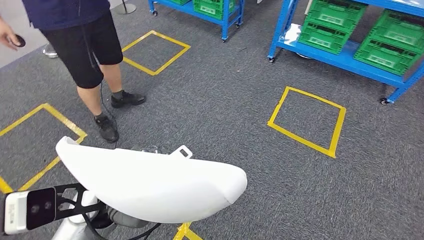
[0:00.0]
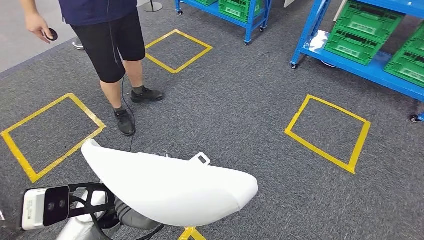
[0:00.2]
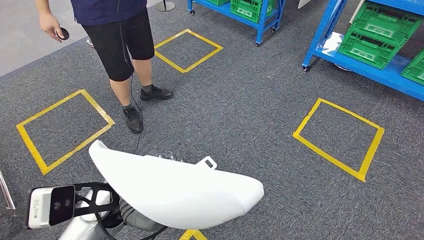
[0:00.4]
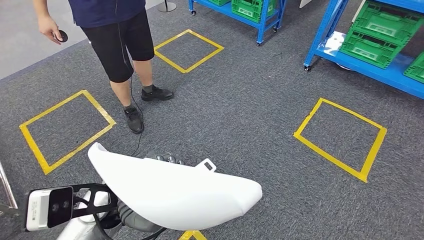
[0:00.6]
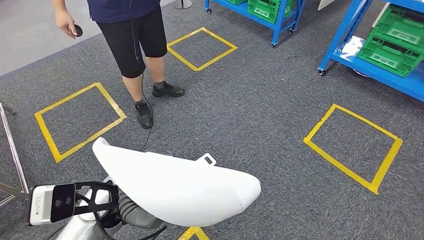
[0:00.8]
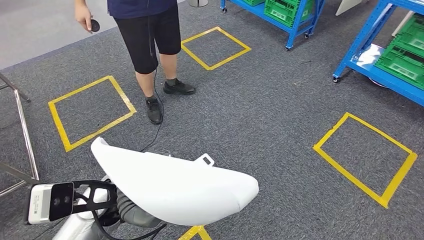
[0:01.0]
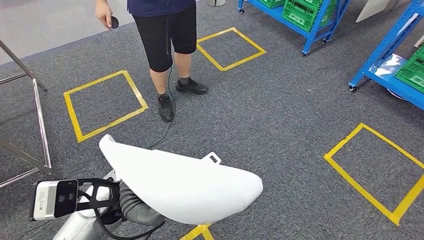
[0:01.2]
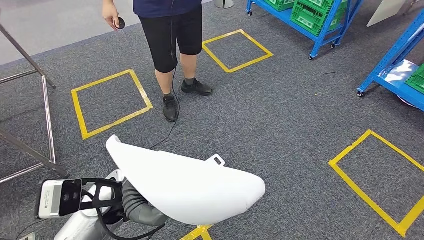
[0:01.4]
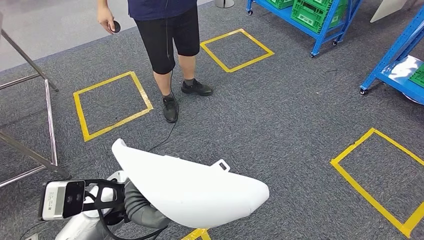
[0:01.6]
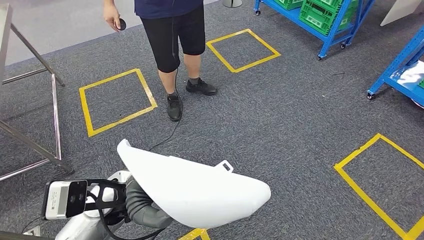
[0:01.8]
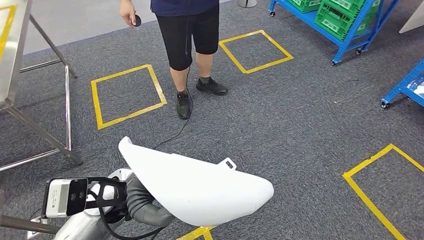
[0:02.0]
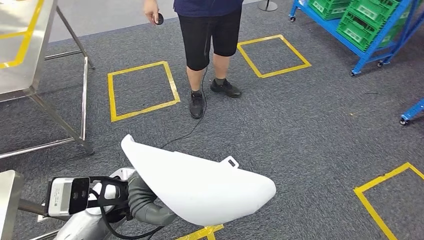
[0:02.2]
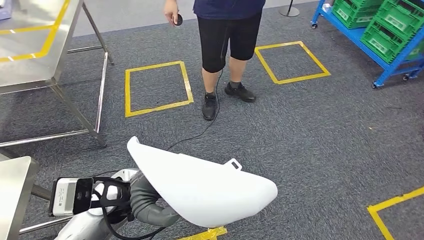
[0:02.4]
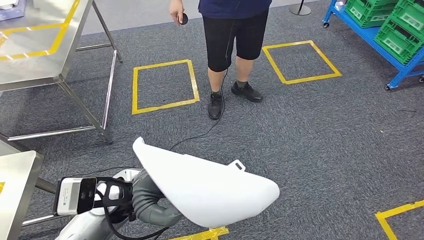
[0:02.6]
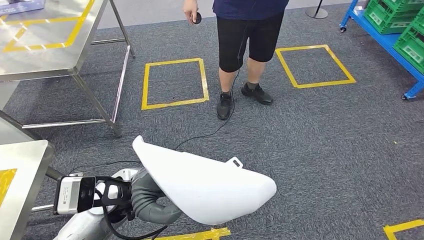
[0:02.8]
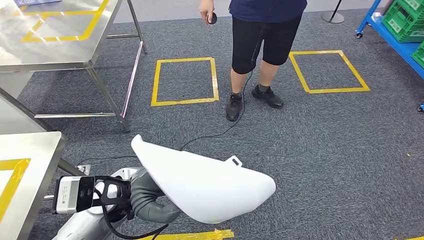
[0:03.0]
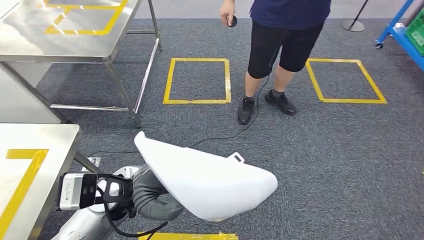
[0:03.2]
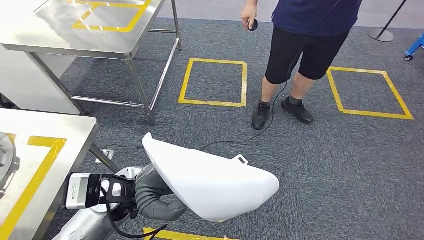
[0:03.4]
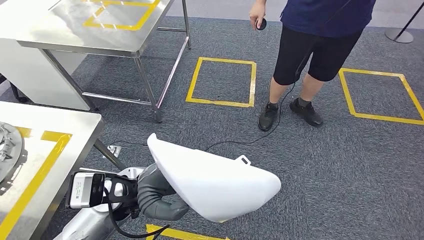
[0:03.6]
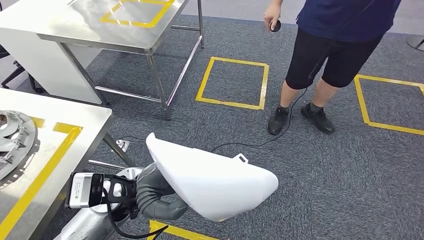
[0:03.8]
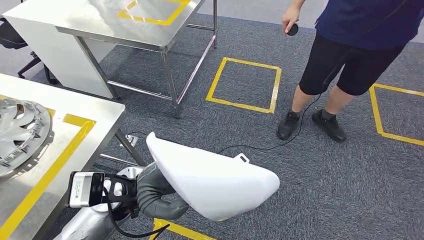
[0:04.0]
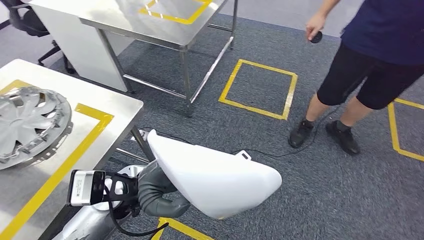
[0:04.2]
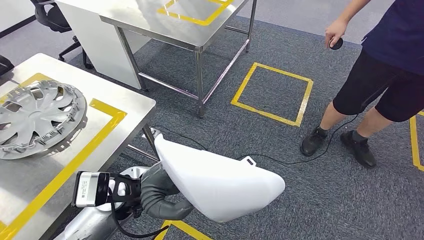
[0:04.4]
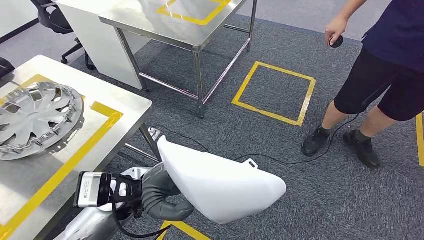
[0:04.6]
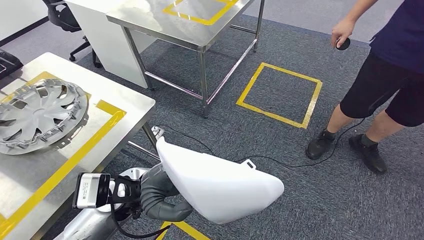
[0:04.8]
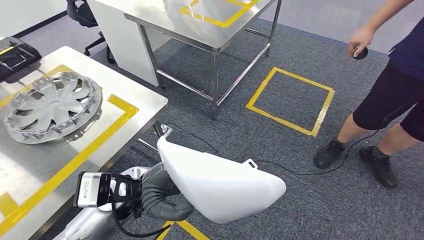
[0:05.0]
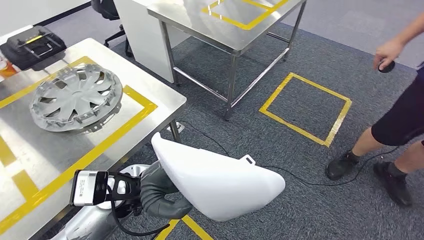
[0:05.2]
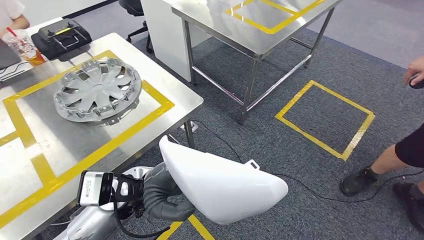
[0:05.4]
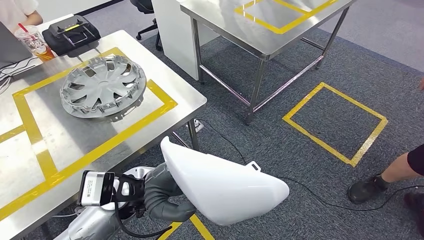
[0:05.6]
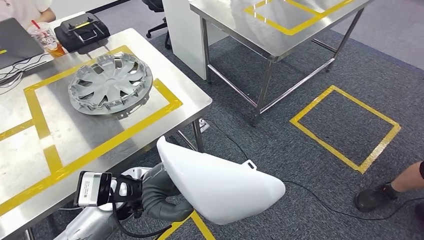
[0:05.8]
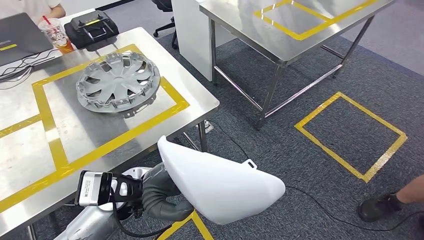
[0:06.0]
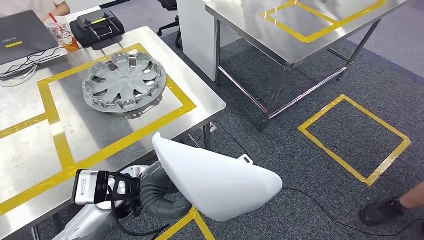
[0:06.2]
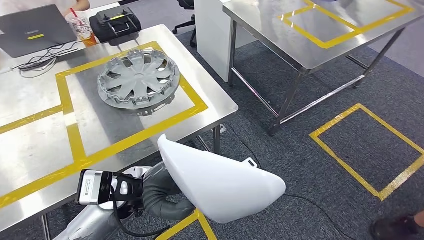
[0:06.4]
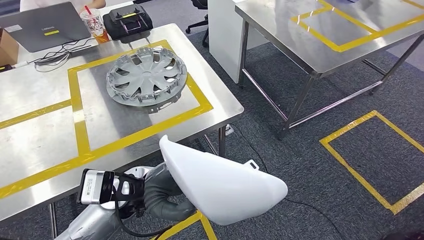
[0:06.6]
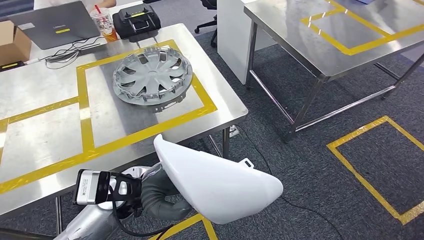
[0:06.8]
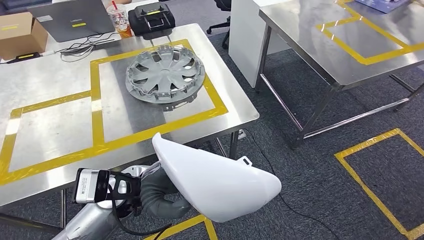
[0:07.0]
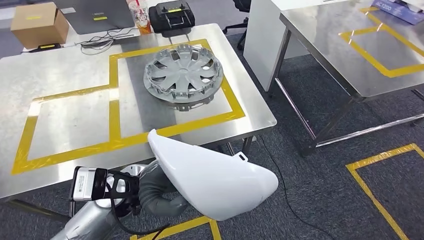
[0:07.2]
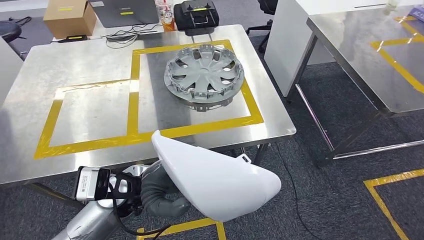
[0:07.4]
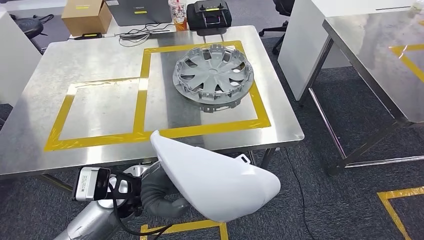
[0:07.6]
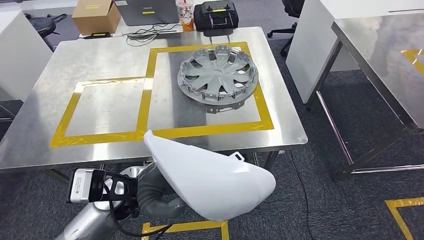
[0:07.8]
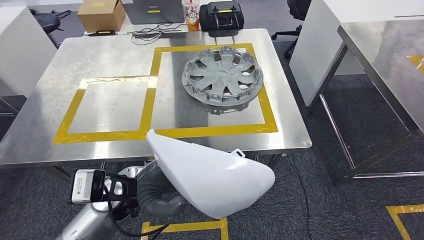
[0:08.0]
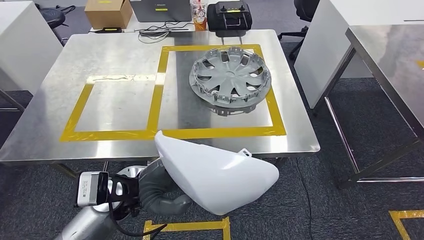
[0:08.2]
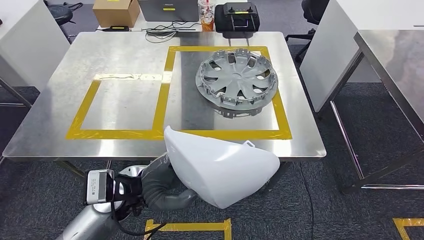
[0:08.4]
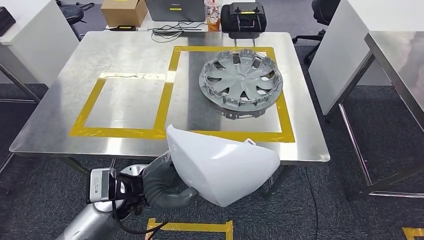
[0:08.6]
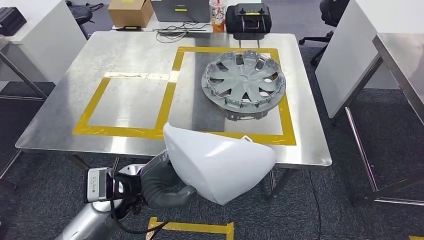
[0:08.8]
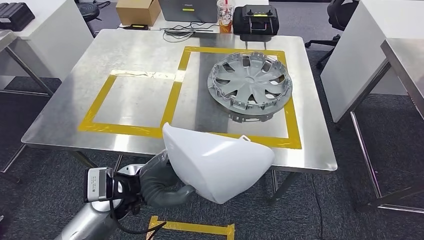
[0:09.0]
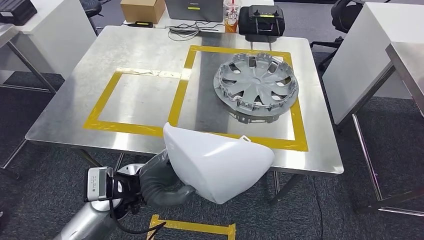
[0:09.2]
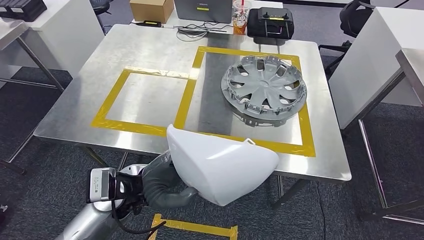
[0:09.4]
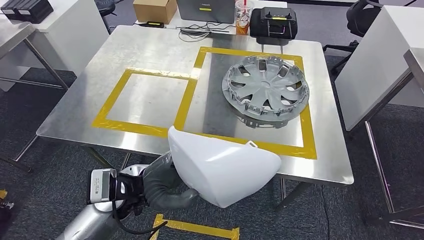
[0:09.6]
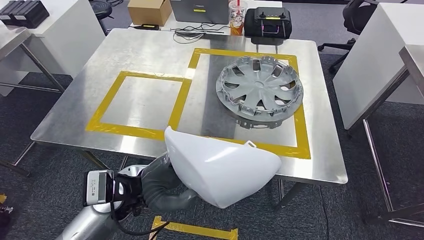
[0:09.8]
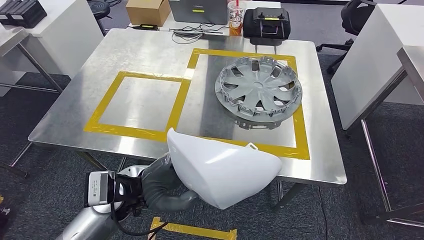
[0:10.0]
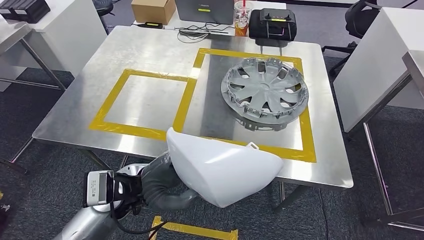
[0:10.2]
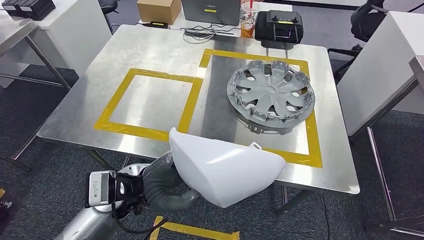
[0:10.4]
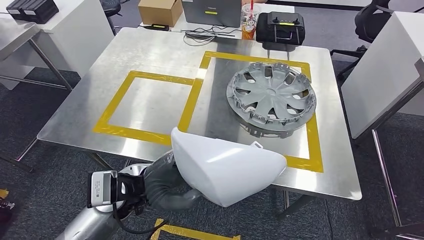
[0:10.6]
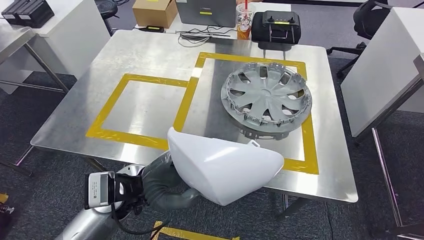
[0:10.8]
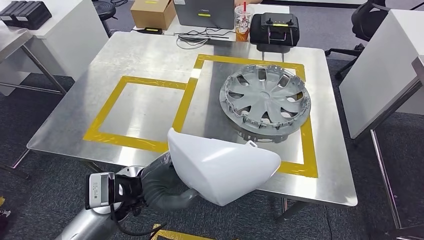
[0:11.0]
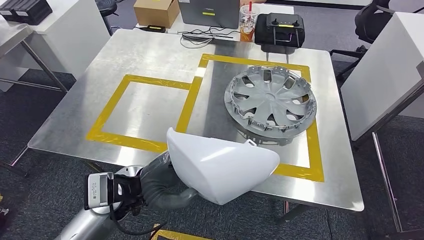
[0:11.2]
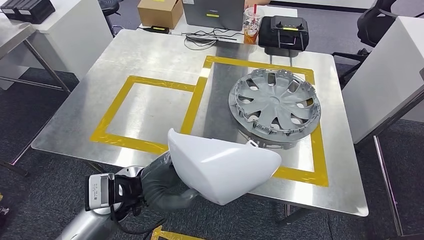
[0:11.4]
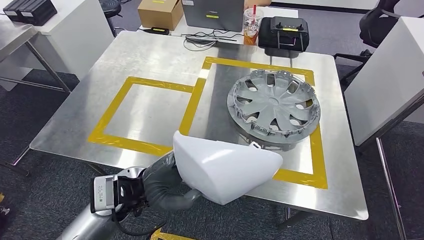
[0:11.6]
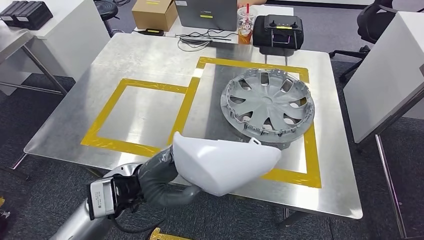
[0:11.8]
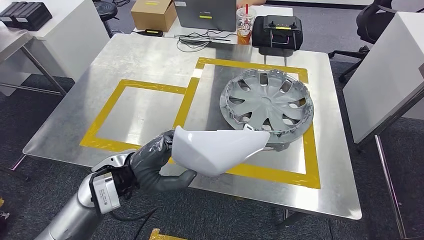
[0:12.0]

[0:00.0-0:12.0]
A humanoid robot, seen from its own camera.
Step, 0:00.0 to 0:07.2: Move the small component to the workbench.

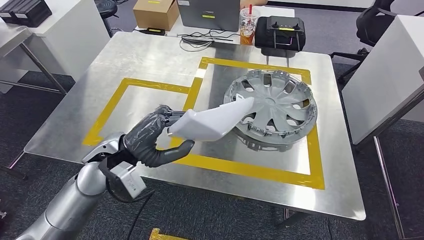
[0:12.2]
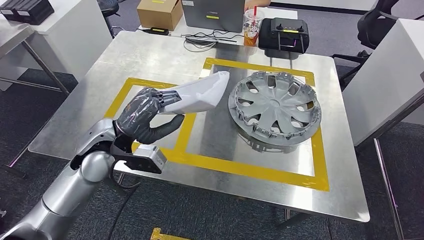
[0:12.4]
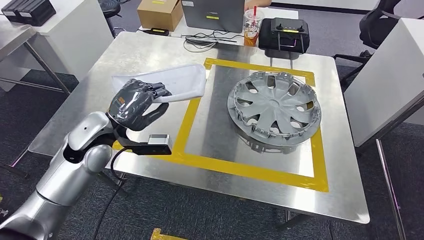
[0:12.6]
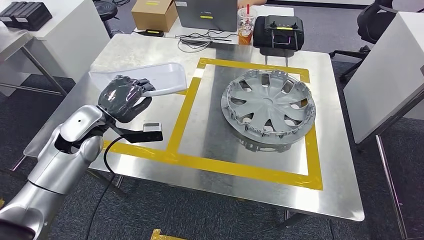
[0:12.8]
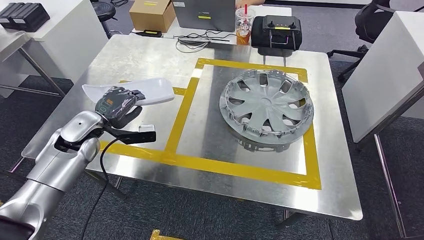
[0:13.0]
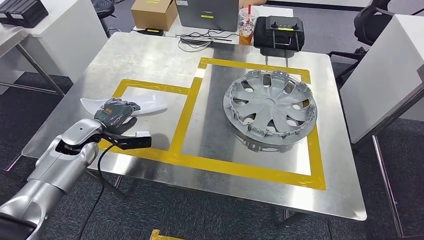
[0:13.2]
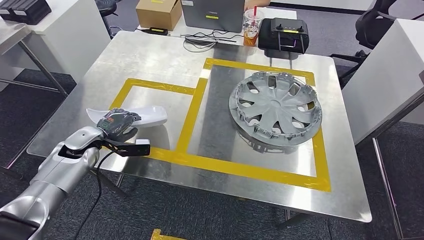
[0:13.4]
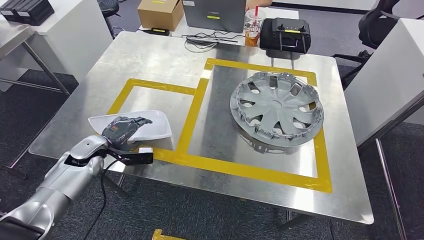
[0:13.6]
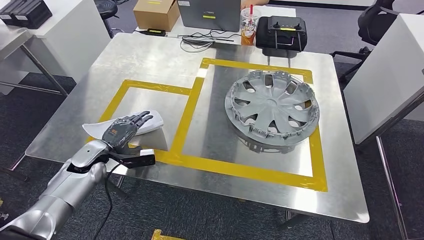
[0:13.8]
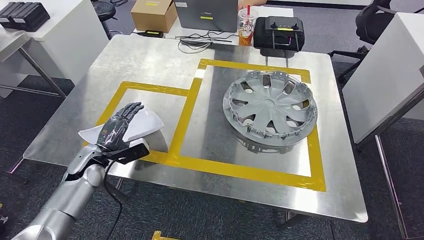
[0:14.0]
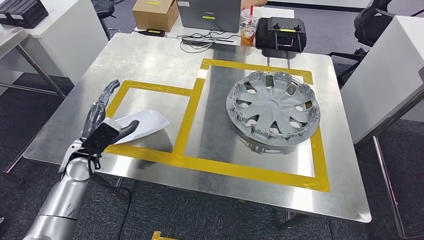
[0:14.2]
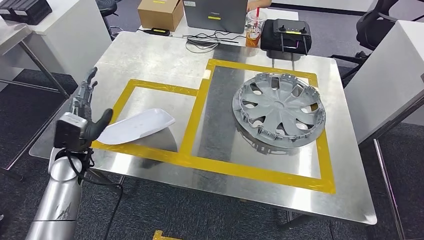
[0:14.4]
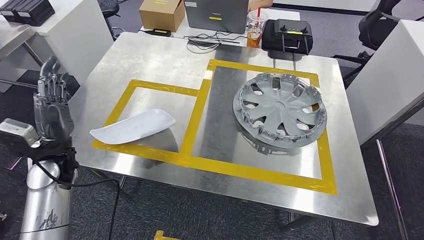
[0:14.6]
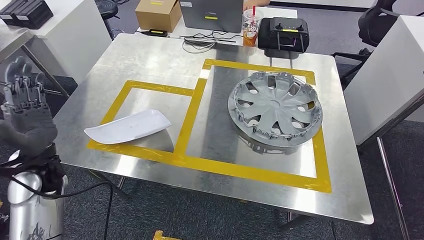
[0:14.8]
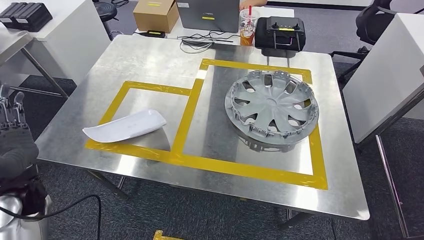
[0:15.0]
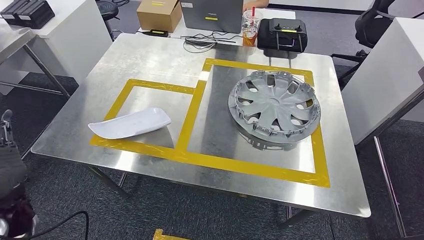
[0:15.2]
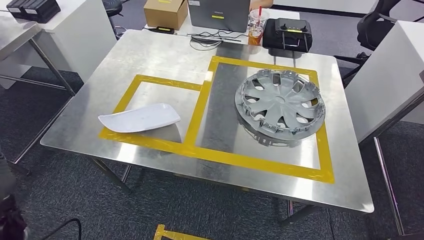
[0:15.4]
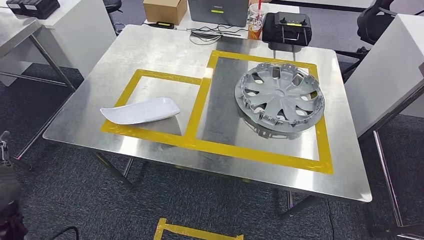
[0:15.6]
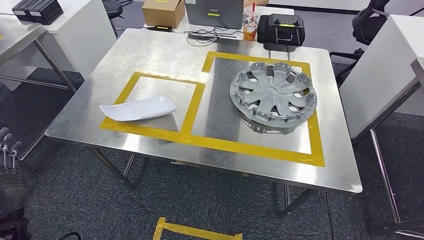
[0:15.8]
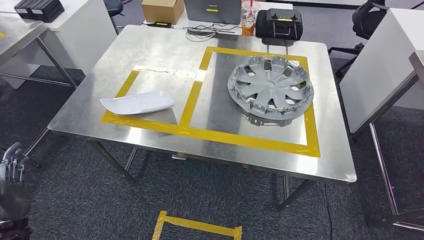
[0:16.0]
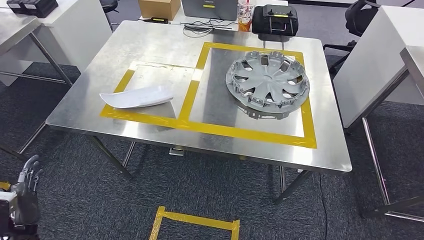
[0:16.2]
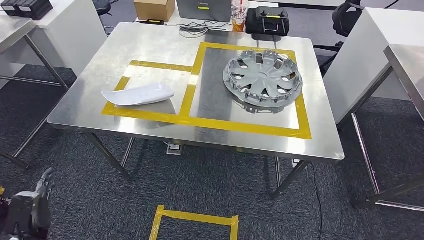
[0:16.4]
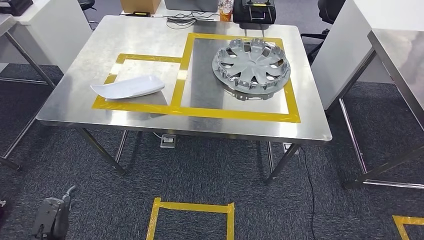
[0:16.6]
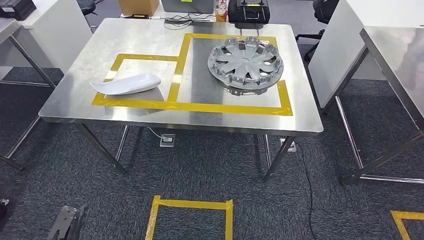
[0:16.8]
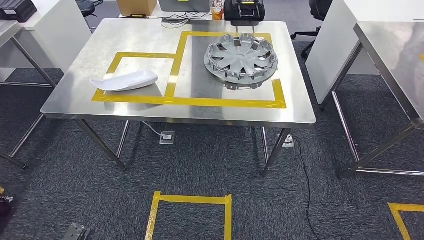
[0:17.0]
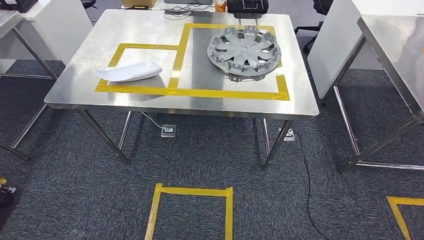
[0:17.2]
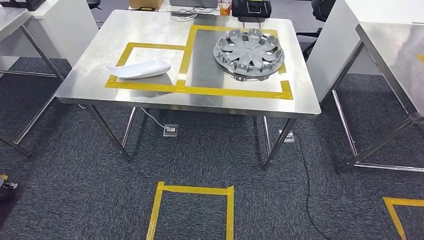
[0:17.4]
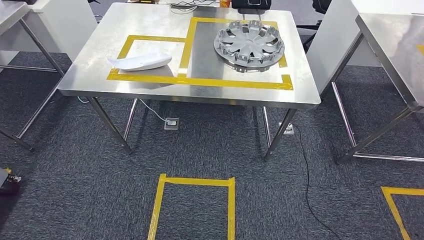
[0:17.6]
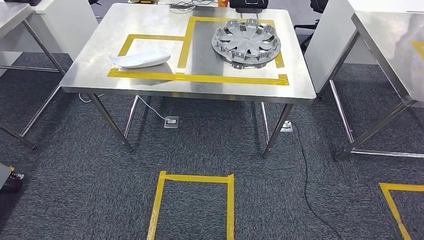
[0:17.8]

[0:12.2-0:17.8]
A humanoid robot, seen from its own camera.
Step, 0:12.2 to 0:15.2: Insert the small component into the corresponding slot on the workbench.
Step, 0:15.4 to 0:17.8: Return to the initial position at the workbench.
